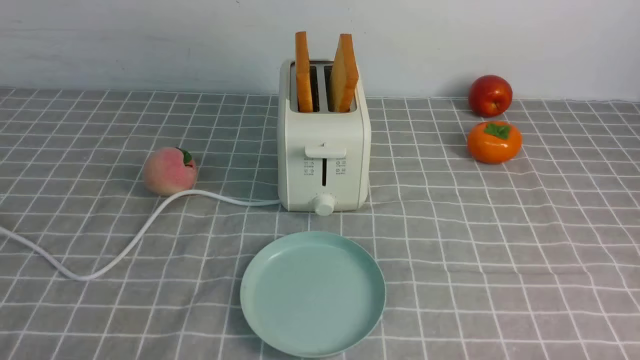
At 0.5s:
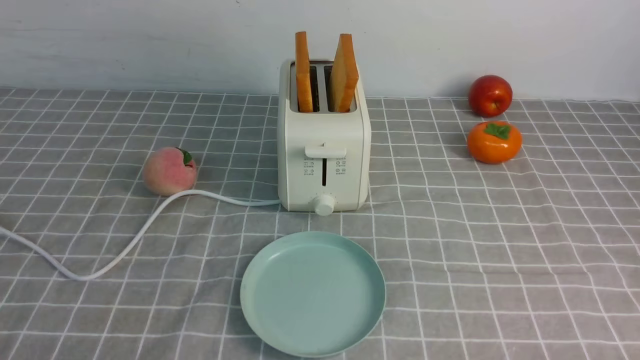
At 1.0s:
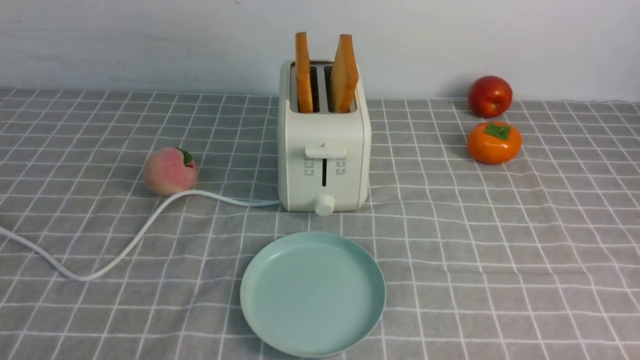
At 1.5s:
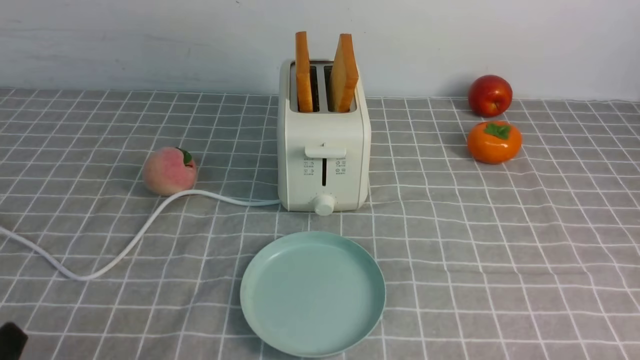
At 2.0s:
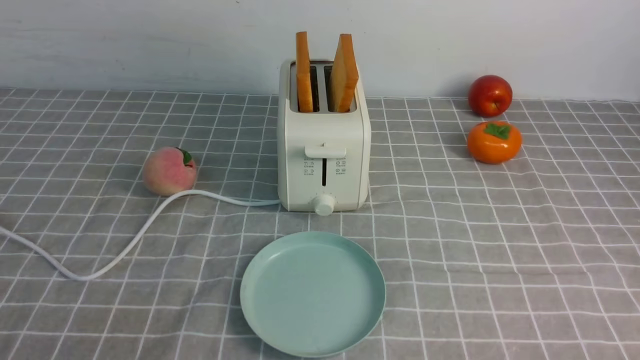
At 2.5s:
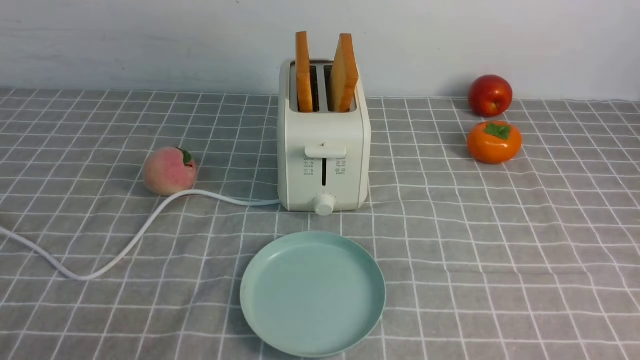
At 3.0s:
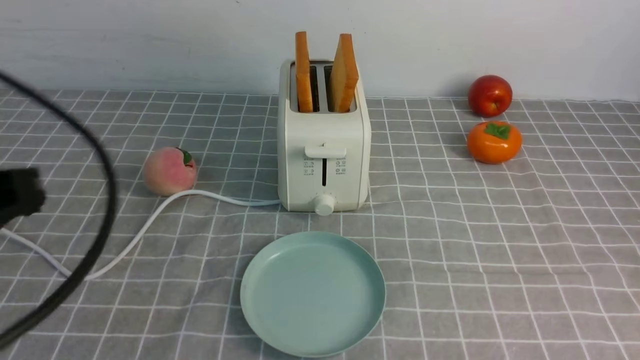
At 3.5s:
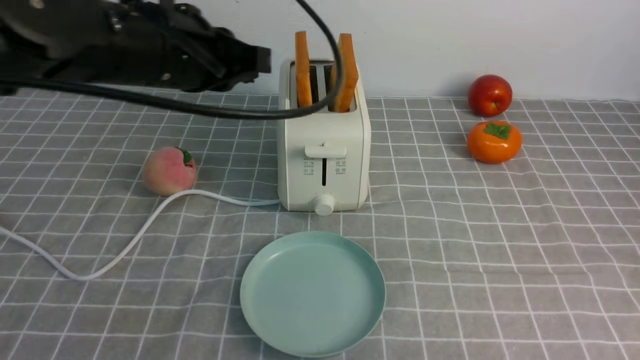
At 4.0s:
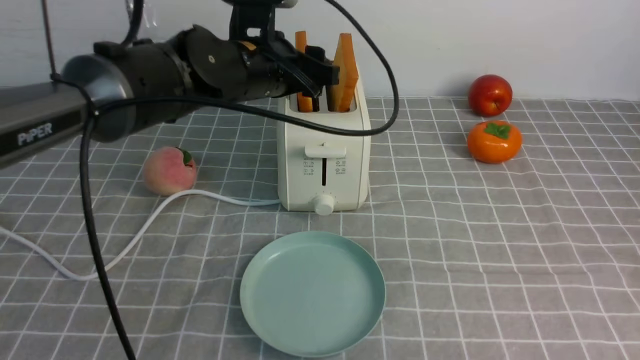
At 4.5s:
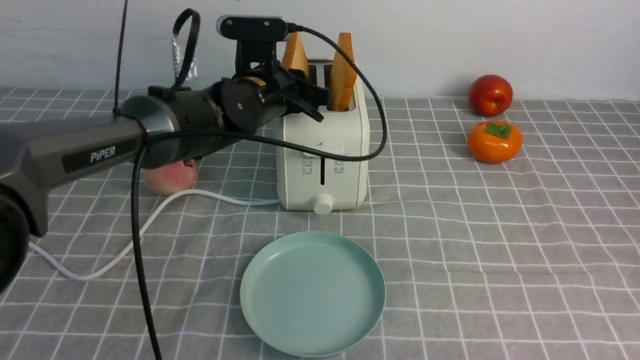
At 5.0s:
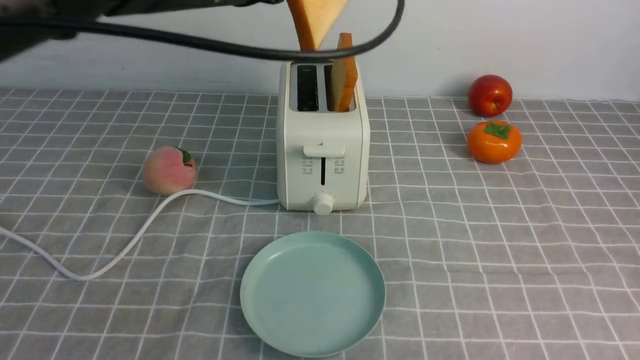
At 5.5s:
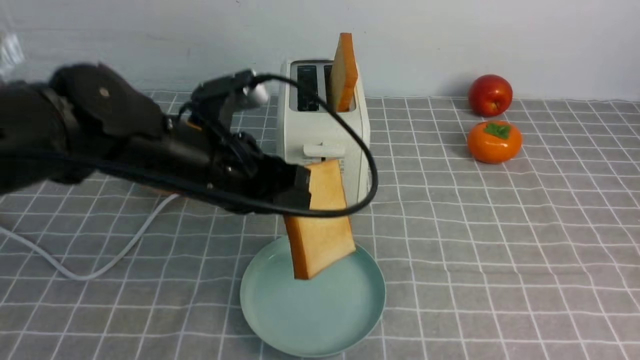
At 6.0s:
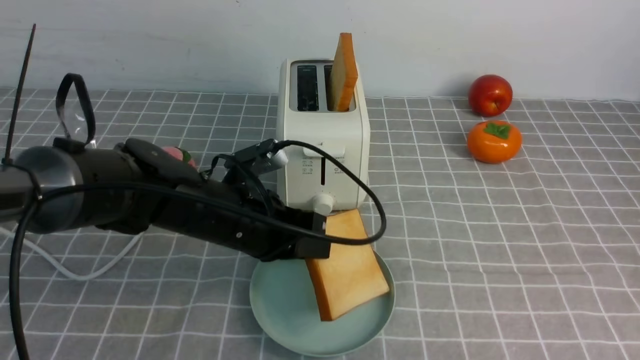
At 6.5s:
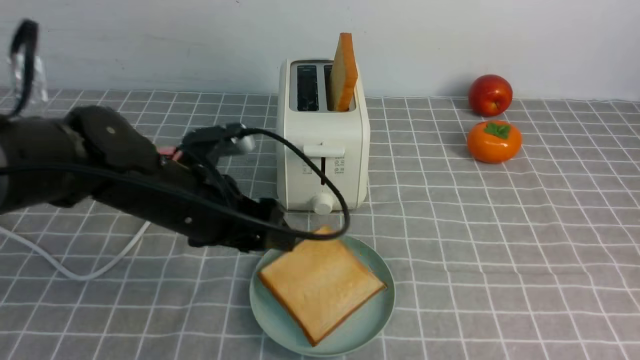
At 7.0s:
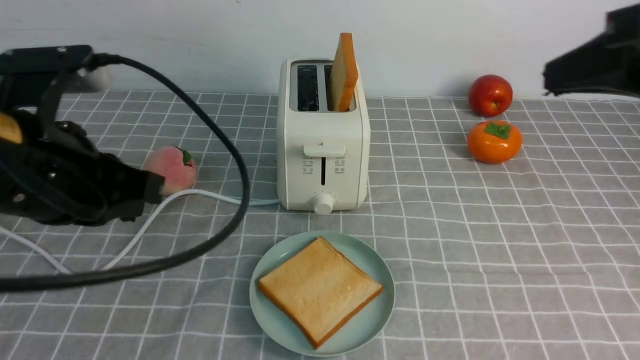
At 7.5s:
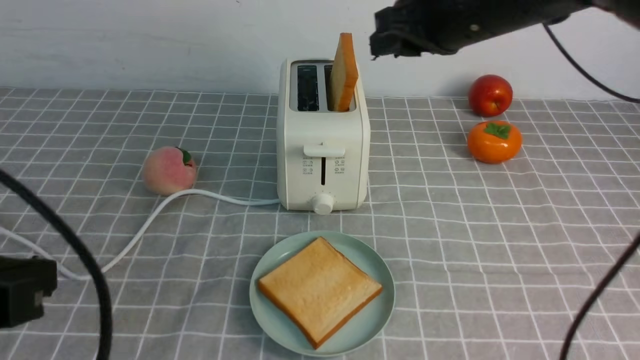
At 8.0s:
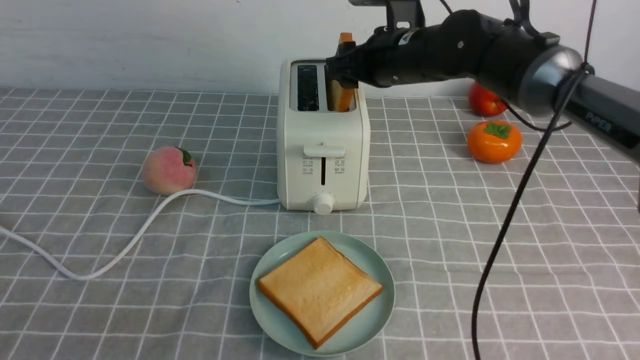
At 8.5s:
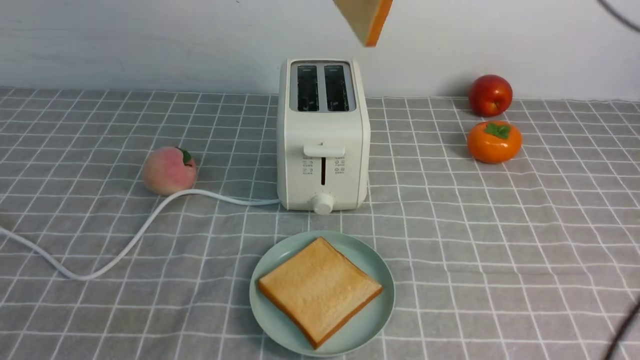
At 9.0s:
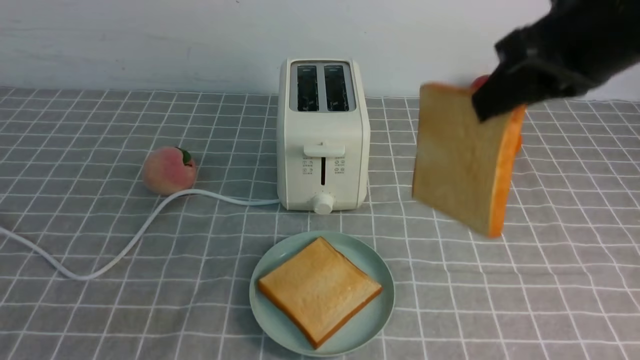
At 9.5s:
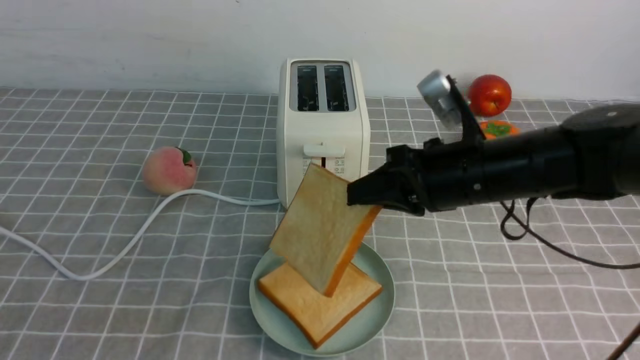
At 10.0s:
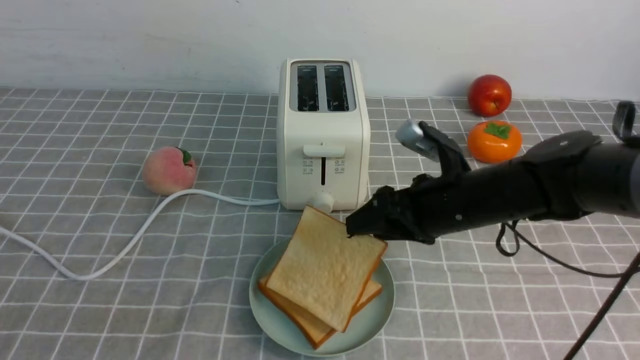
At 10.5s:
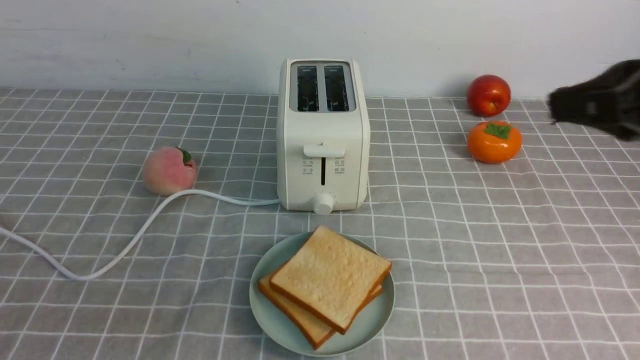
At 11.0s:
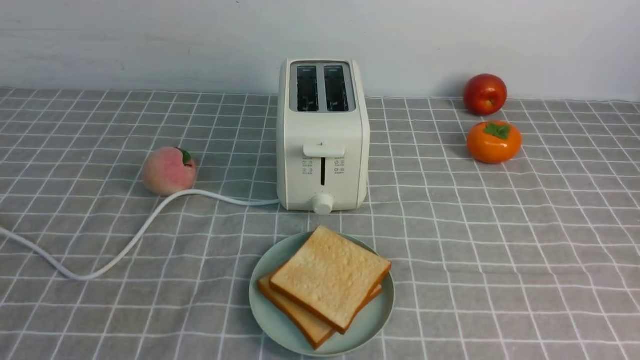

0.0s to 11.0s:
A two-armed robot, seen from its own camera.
Task of the whole recording: take toasted bread from bread machine on grey coffee table place on plate.
Step, 0.0s to 4.5s: use the left arm to take out a slice of bread.
Step, 5.0s to 6.5s: use the left arm to put a slice of bread into the empty plate.
Step, 7.0s to 8.0s: use the right arm to take out a slice of bread.
Step, 9.0s to 10.0s: use the right arm to put a slice of bread into the plate.
2.0s to 3.5s: The left gripper is displaced forward, upward and to the right by roughly 35 cm, while the right gripper shifts approximately 15 cm upward, and closes its fingers.
3.5s to 5.5s: The left gripper is displaced downward by roughly 10 cm, travels forward and back again, approximately 10 cm each way, and opens, then closes again.
5.5s to 7.5s: The right gripper moves forward and to the left, some 35 cm, and opens up. Meanwhile the left gripper shifts approximately 25 cm backward and to the left, and opens, then closes once more.
7.5s to 9.0s: The right gripper heads backward, covering roughly 10 cm, and closes its fingers. The left gripper goes roughly 5 cm backward.
9.0s to 11.0s: The right gripper goes roughly 25 cm backward, to the right and downward, and opens, then closes again.

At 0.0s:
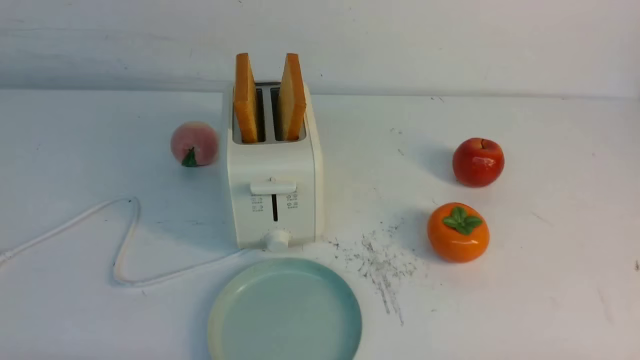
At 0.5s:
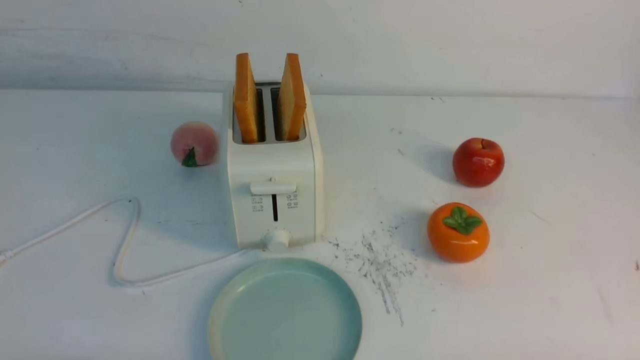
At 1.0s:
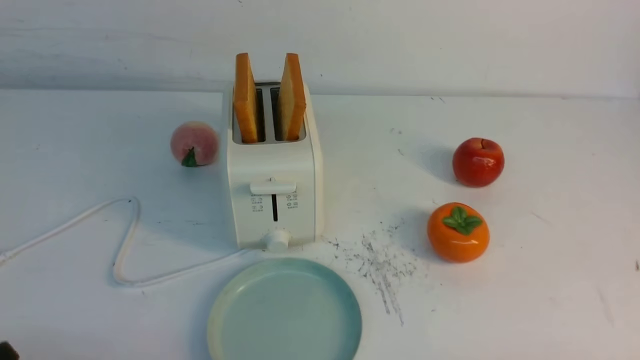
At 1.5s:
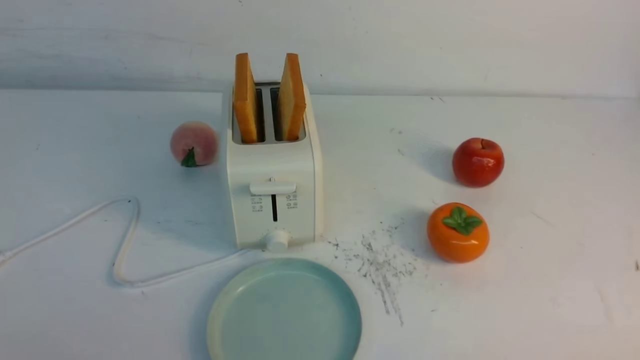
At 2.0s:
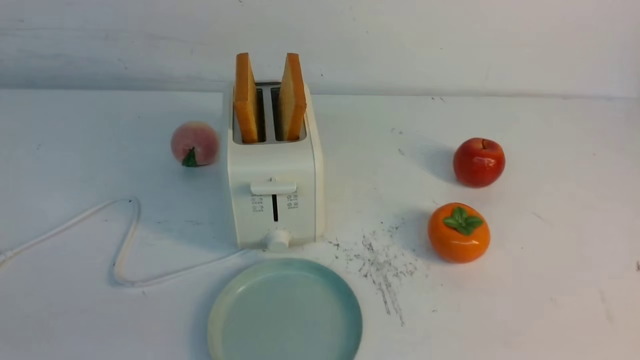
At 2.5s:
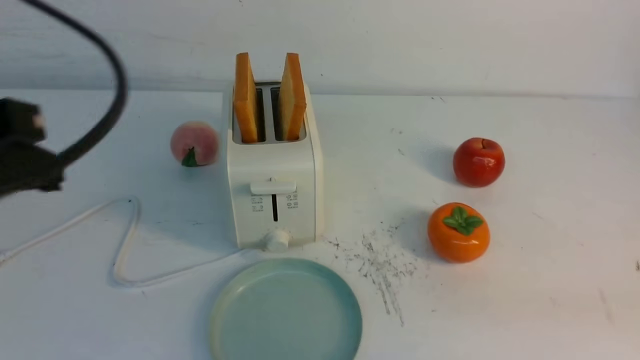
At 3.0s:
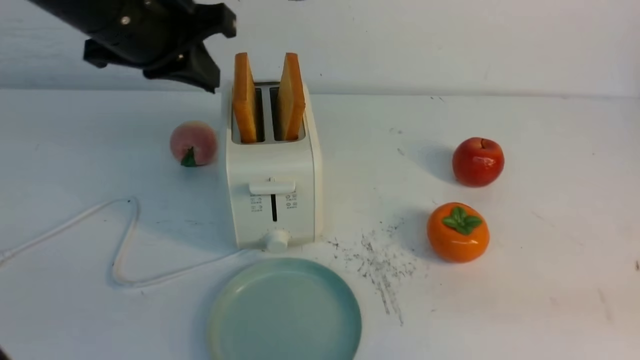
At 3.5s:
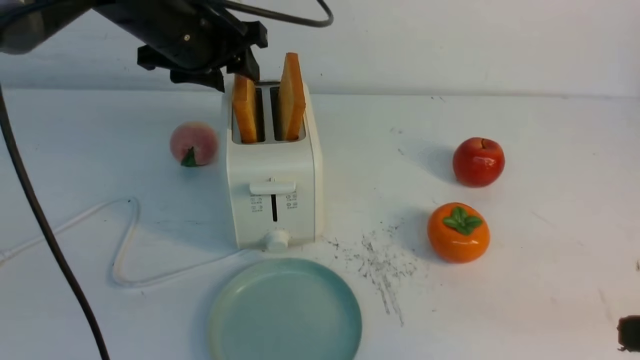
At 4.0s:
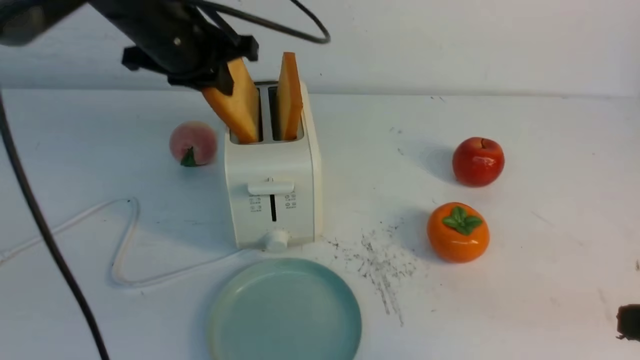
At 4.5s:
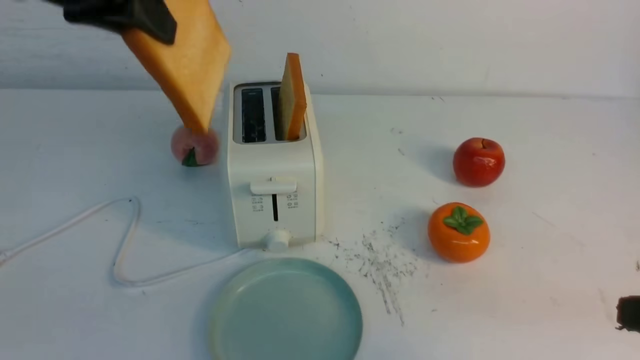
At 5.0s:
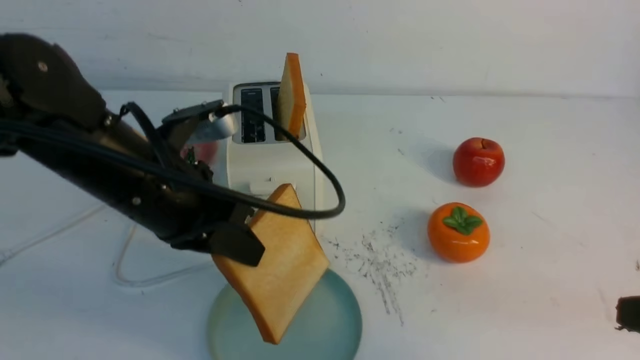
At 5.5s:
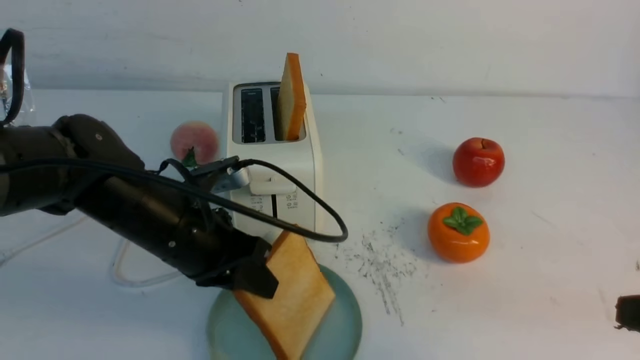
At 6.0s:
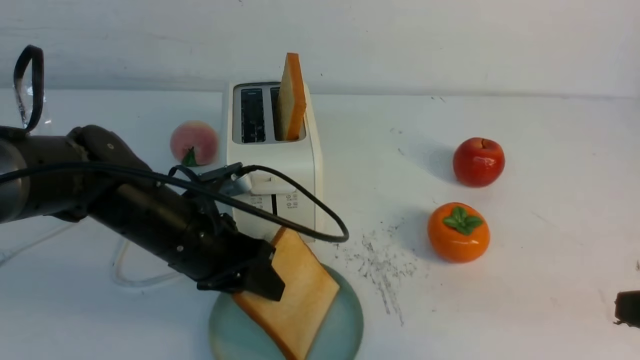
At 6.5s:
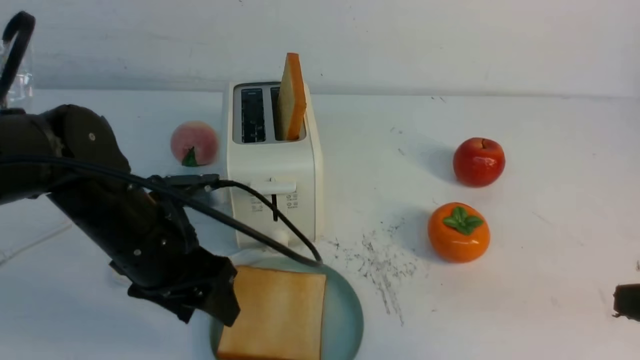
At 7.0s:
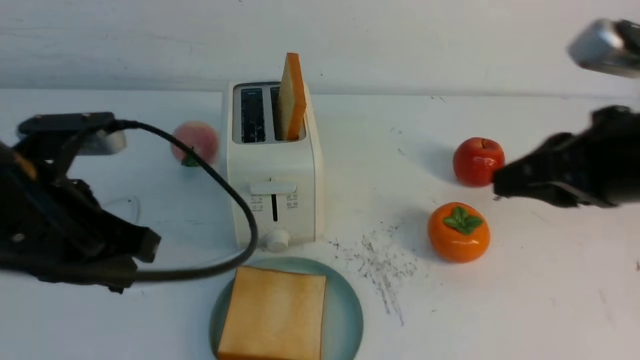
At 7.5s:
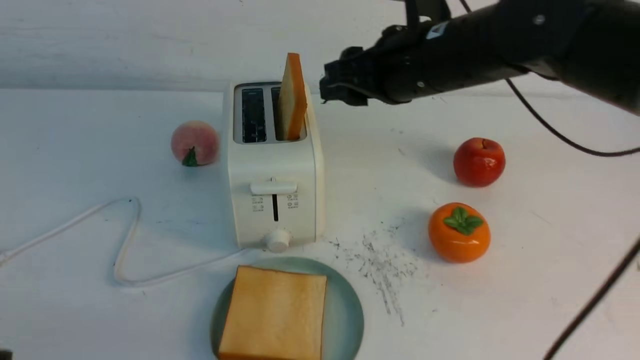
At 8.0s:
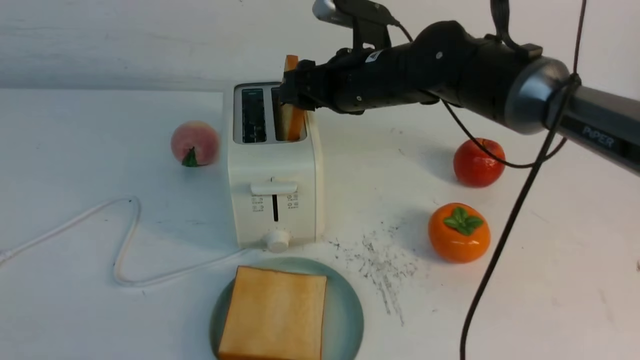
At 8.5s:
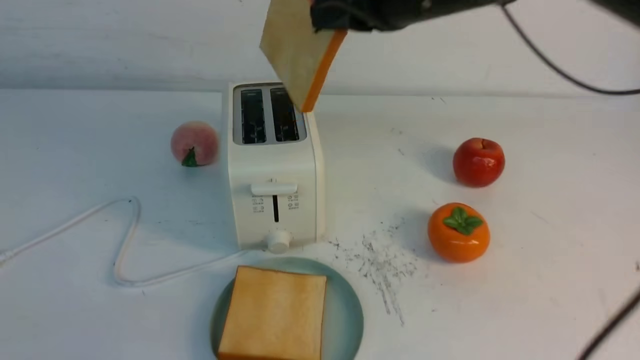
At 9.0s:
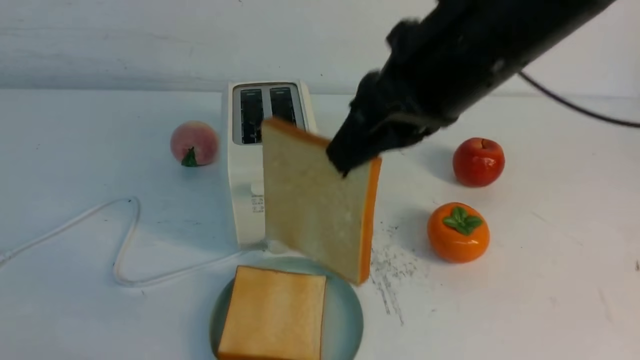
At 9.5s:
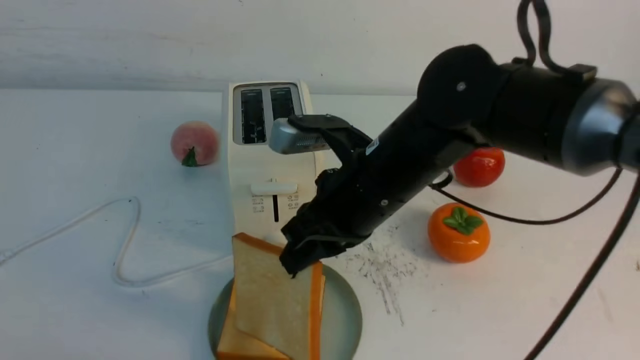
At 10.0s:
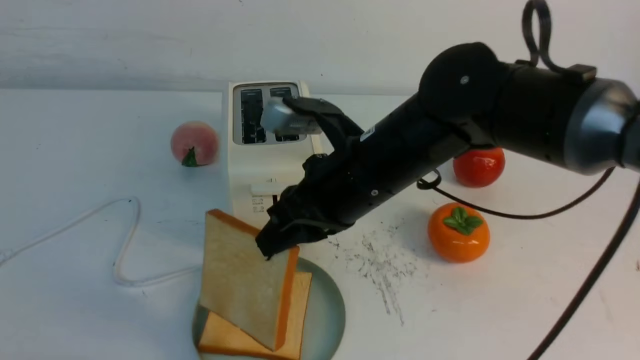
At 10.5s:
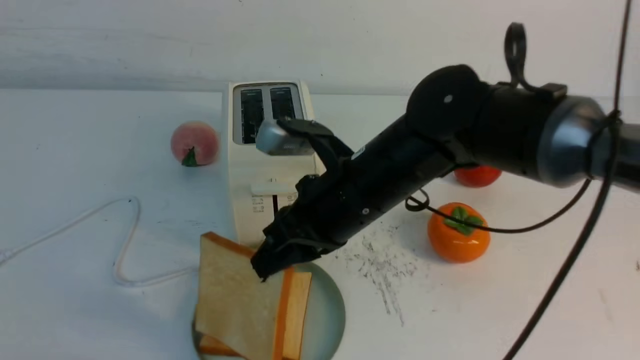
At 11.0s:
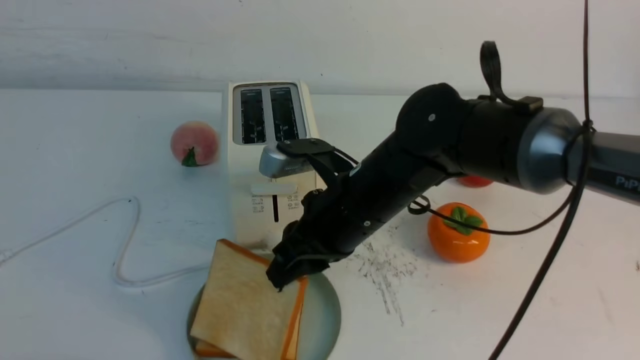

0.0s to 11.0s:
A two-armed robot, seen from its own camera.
Task of the whole recording: take toasted bread from bread machine on white table place on plate.
Step, 0.0s to 4.0s: use the left arm to take out a slice of bread.
Step, 4.5s to 7.0s: use the left arm to put a slice of bread into the empty plate.
Step, 7.5s to 8.0s: use the right arm to take out a slice of bread.
2.0s to 3.5s: The left gripper travels forward by some 40 cm, and opens. Meanwhile the right gripper moves forward, approximately 5 cm.
3.5s to 5.5s: The left gripper heads downward and backward, covering some 20 cm, and closes up.
5.5s to 7.5s: The right gripper goes about 30 cm forward and to the left, and opens, while the left gripper goes some 25 cm backward and upward, and opens, then closes again.
7.5s to 9.0s: The right gripper travels backward and upward by roughly 10 cm, and closes its fingers.
9.0s to 11.0s: The right gripper moves downward, roughly 15 cm.
